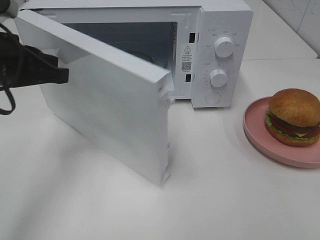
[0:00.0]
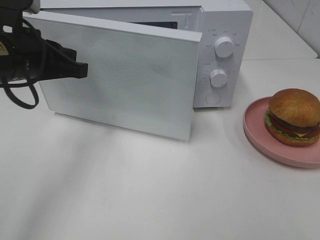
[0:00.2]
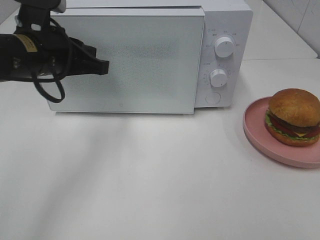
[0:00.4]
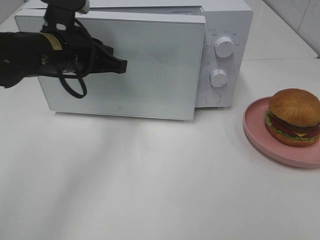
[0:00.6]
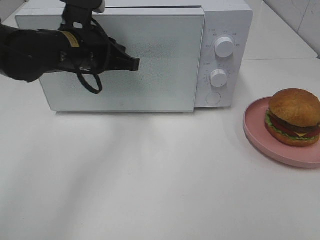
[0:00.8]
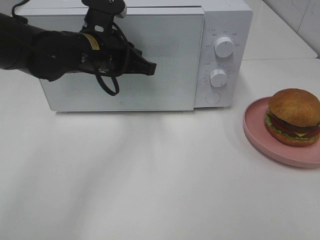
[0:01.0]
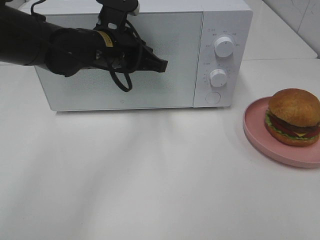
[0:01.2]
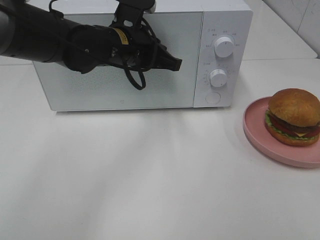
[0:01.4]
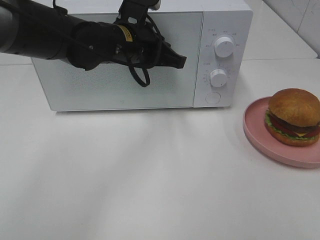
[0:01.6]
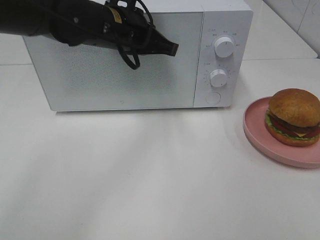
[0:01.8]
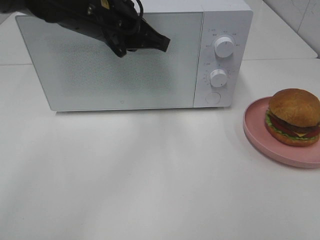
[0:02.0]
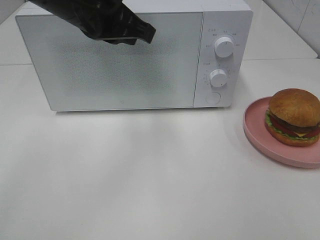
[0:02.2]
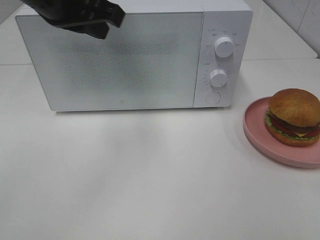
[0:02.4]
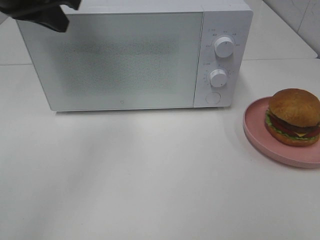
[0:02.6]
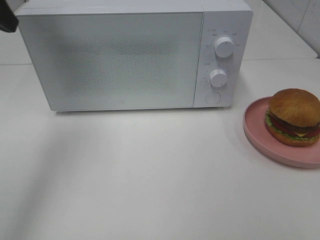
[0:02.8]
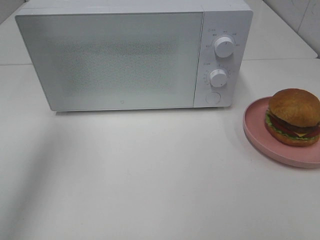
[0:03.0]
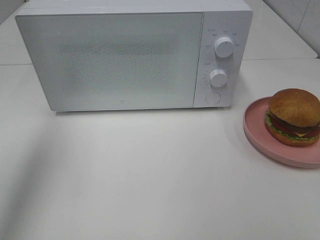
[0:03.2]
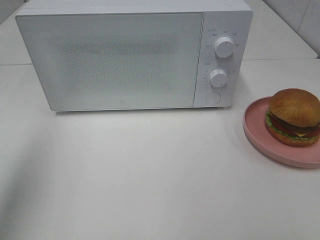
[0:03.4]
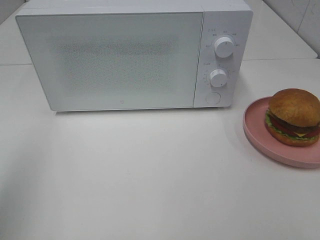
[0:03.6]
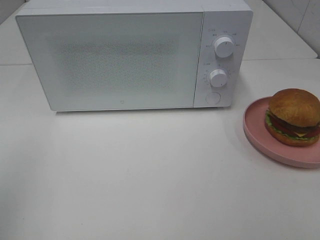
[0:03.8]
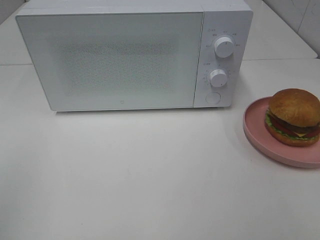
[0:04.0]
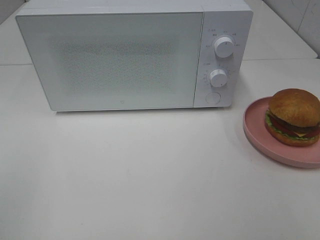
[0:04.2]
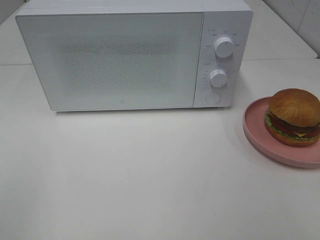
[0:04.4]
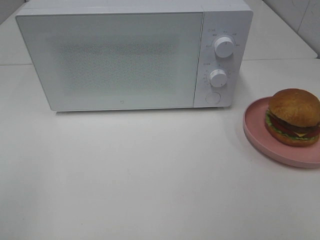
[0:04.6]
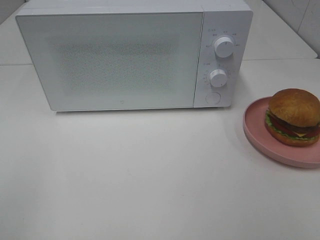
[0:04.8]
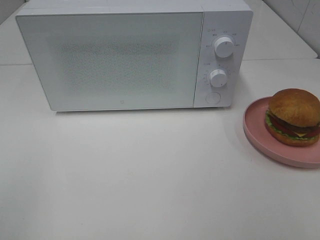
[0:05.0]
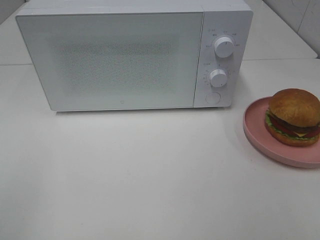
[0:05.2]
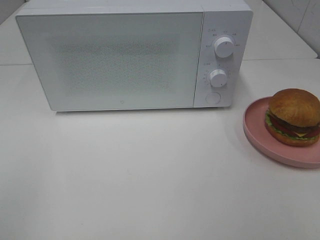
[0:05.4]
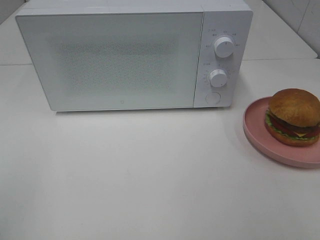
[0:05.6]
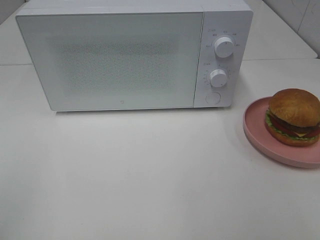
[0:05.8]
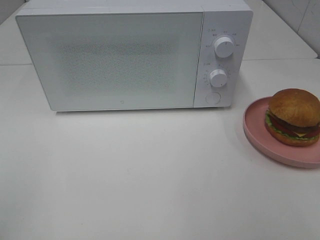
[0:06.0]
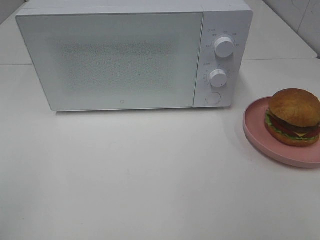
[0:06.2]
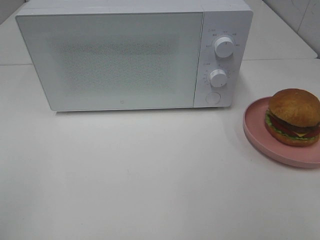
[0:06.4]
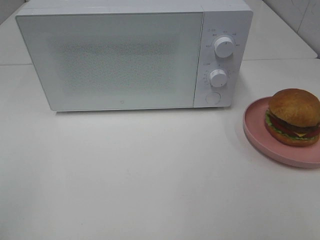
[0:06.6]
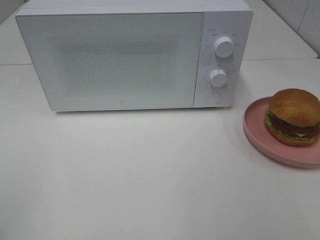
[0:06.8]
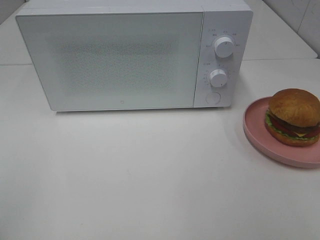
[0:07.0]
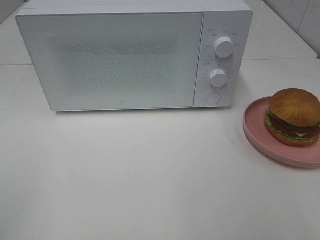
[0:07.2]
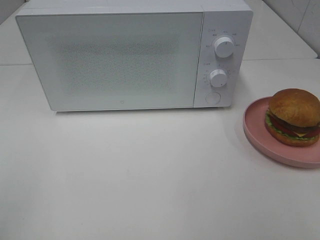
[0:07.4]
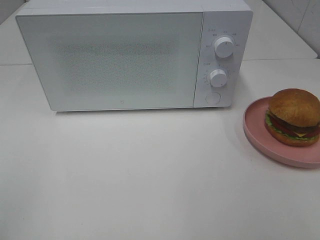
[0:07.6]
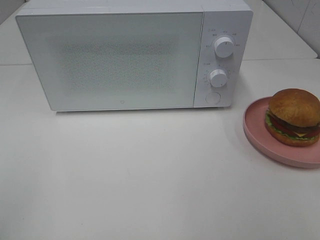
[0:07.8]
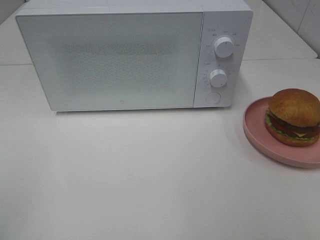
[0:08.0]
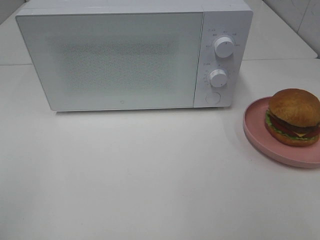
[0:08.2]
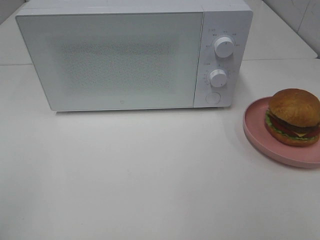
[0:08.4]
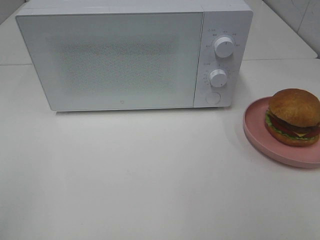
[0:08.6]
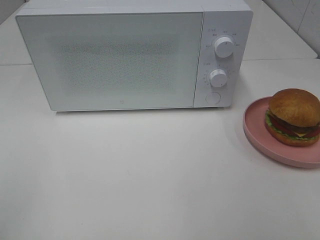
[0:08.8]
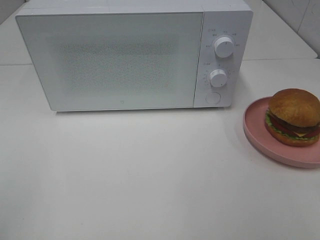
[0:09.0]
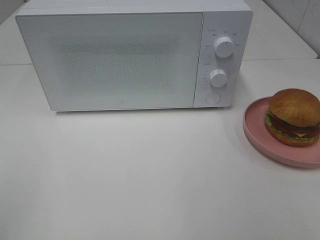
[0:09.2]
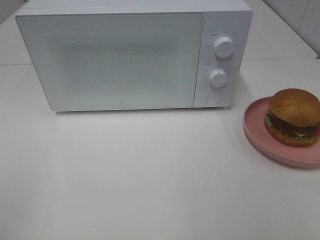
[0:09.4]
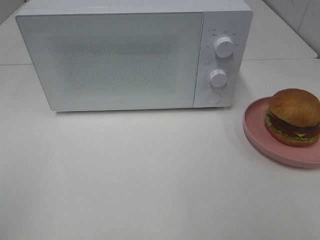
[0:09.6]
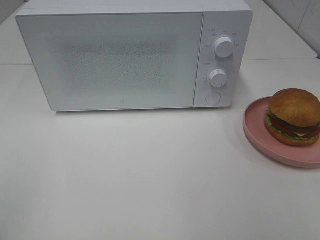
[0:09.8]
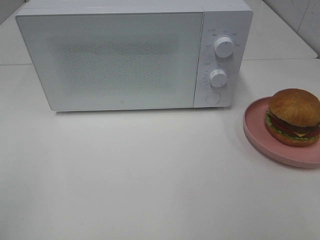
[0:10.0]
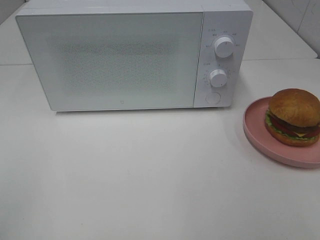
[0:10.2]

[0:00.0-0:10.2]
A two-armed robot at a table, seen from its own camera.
Task of the whole recording: Heat the burger.
0:00.0 to 0:01.4: The left gripper goes some 20 cm to the right and forward.
0:01.4 to 0:03.0: The left gripper shifts some 30 cm to the left, upward and backward.
0:03.0 to 0:04.4: The left gripper shifts approximately 25 cm backward.
0:05.8 to 0:10.2: Neither gripper changes place.

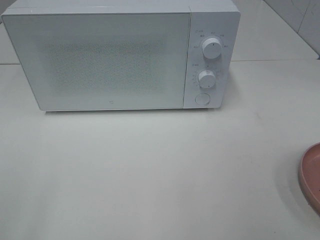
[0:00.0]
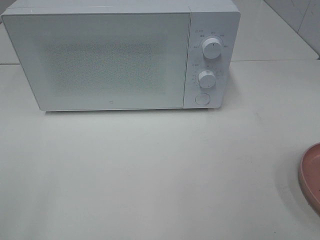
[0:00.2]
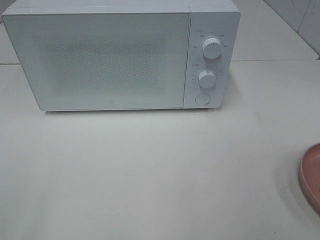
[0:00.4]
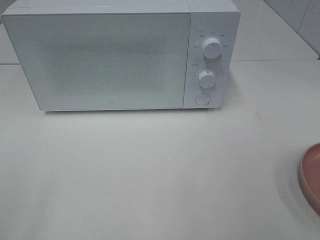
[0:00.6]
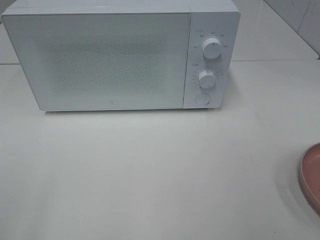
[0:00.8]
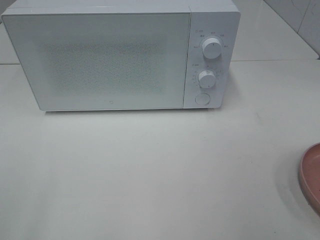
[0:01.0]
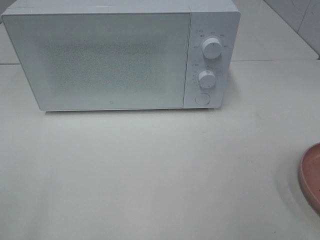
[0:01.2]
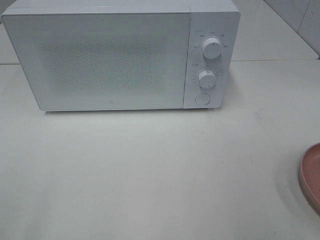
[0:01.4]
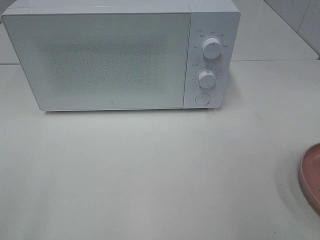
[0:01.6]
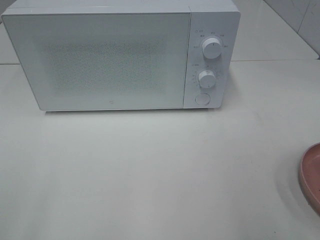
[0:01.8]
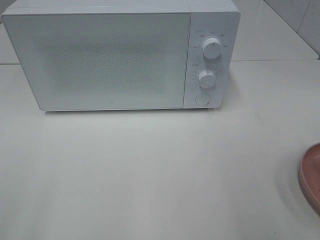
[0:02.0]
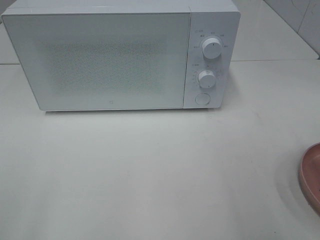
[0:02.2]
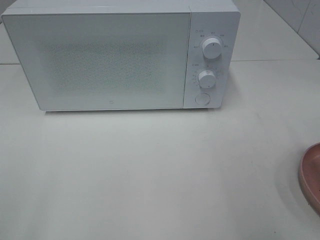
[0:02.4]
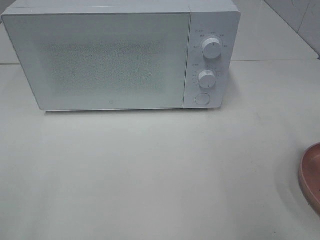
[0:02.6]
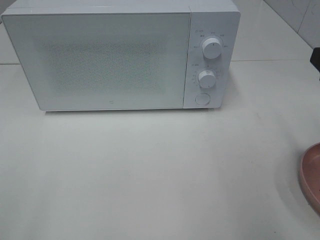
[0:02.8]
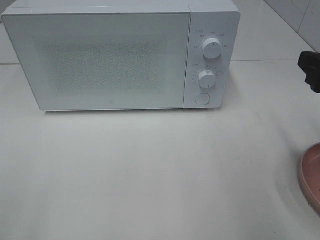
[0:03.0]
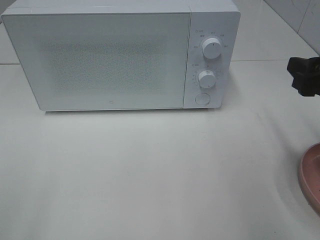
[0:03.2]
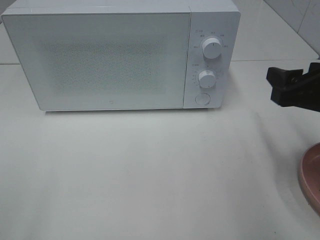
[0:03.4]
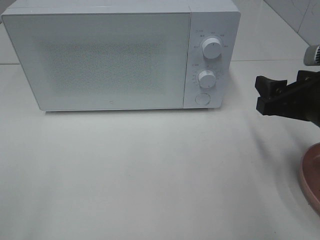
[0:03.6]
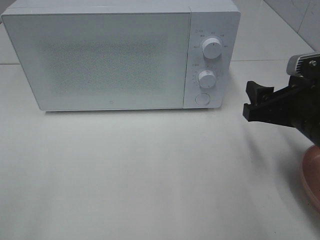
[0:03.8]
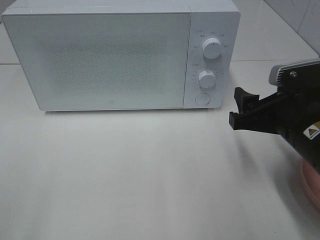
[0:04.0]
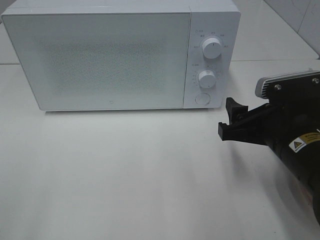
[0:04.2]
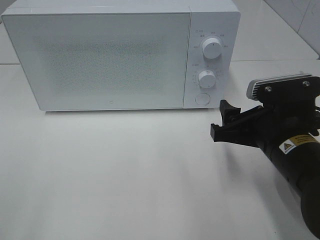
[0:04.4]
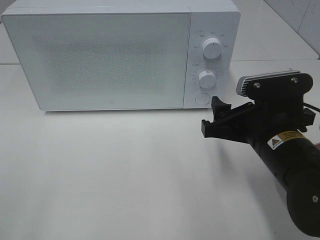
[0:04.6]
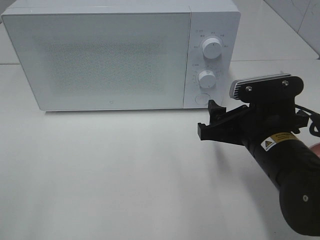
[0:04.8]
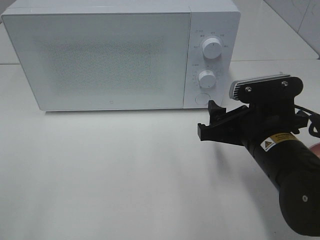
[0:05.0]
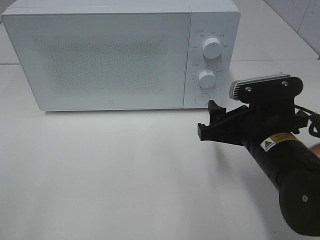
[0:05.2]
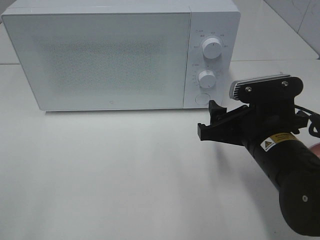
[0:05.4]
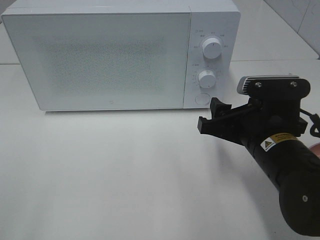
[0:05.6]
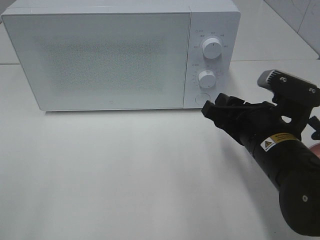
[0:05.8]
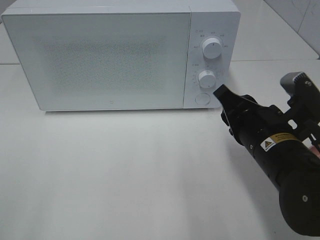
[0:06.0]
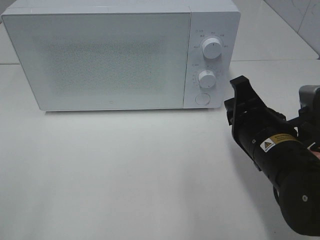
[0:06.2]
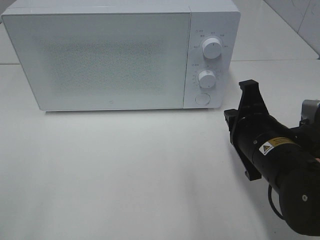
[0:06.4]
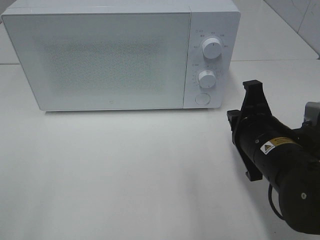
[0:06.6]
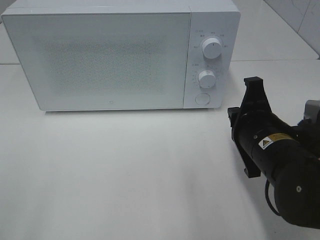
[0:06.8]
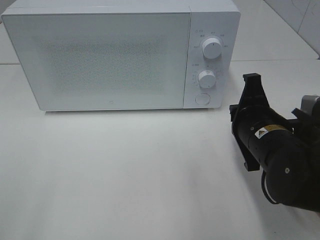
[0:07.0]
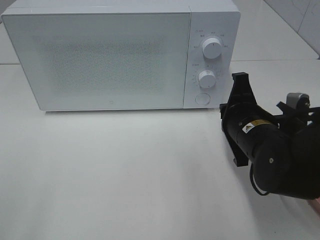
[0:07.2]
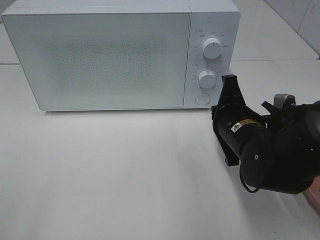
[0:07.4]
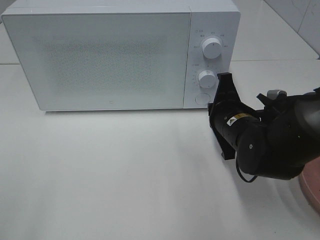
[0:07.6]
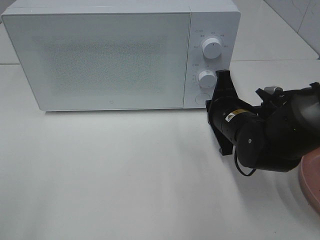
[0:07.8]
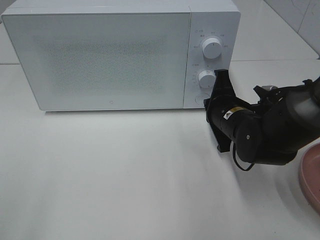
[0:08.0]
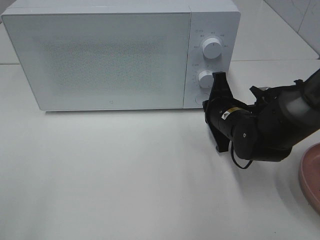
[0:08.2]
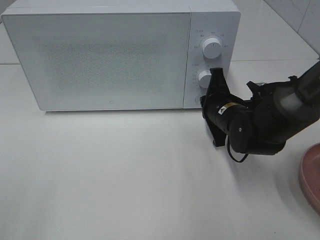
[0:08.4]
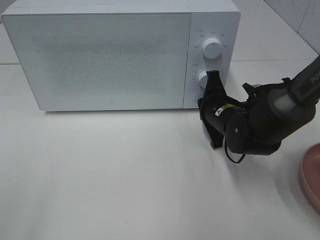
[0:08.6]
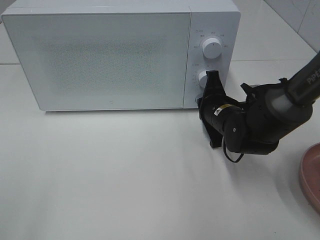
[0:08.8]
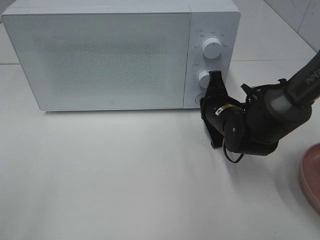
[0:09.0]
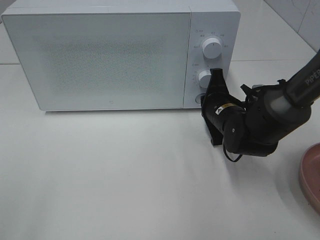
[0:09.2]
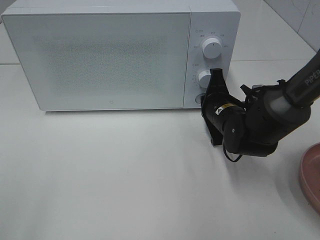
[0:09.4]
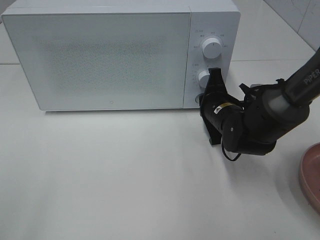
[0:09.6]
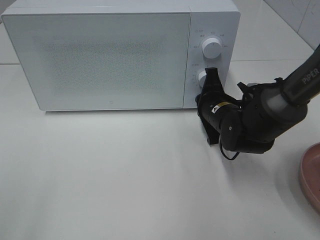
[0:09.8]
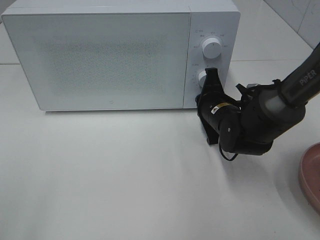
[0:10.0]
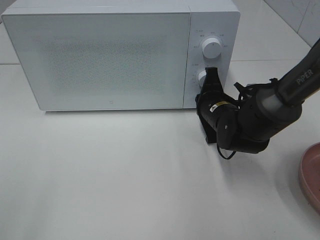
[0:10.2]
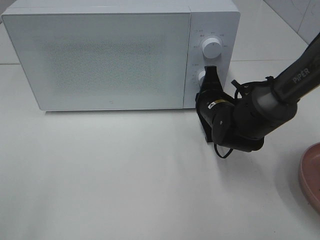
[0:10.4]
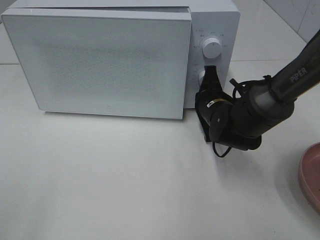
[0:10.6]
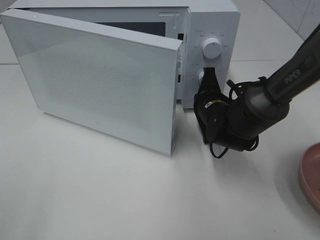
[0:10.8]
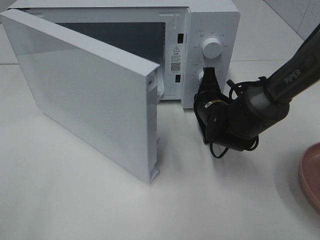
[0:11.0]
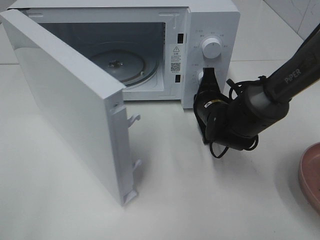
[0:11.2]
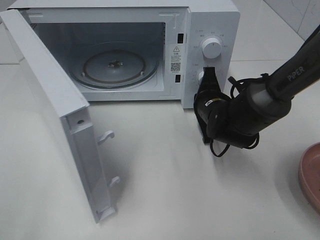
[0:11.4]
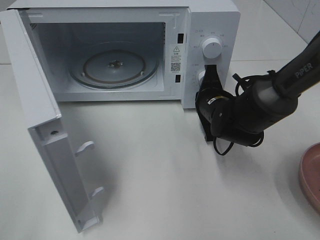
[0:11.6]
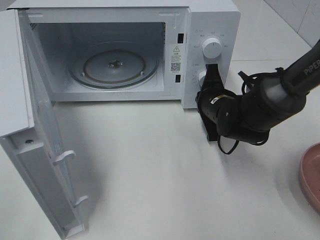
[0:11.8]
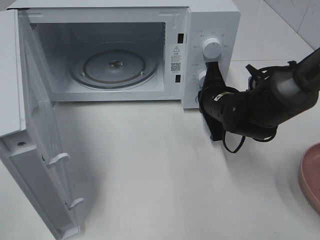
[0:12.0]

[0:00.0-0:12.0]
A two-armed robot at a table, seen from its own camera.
Task of the whole recording: Heat the burger.
0:01.6 to 0:03.0: The right gripper travels forward and downward by some 15 cm.
0:03.0 to 0:04.4: The right gripper moves to the left and downward, roughly 15 cm.
0:04.4 to 0:06.0: The right gripper closes up.
0:06.0 to 0:07.6: The right gripper goes approximately 5 cm forward, and closes.
0:07.6 to 0:09.0: The right gripper travels forward by about 5 cm.
0:09.0 to 0:10.4: There are only small adjustments of the grippers.
